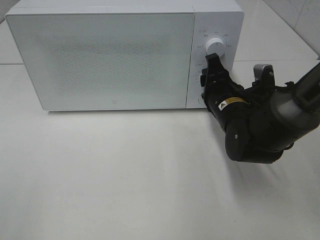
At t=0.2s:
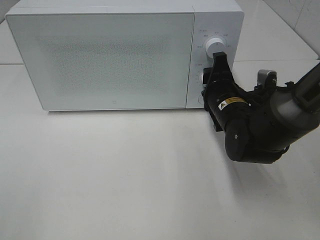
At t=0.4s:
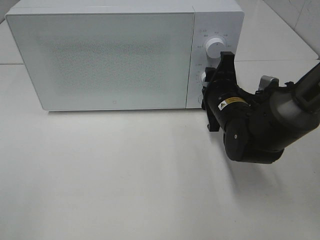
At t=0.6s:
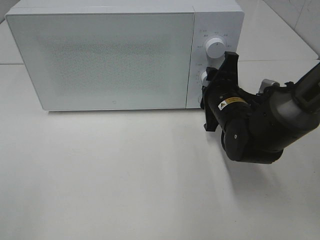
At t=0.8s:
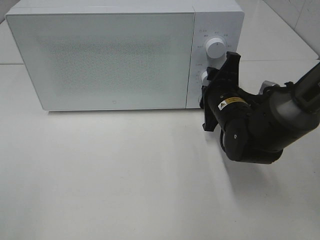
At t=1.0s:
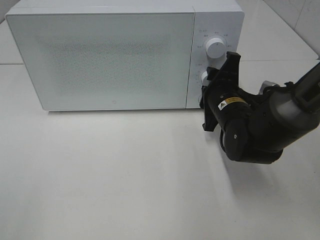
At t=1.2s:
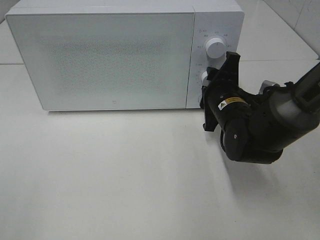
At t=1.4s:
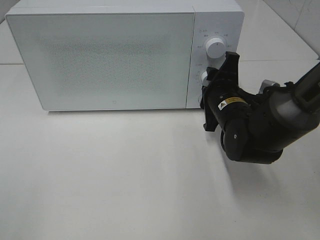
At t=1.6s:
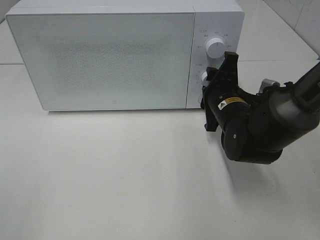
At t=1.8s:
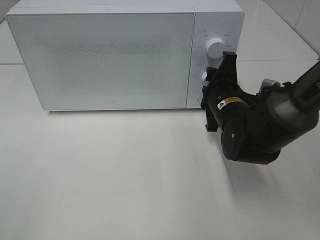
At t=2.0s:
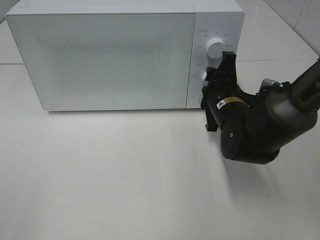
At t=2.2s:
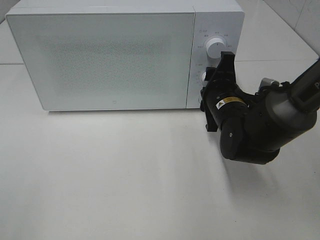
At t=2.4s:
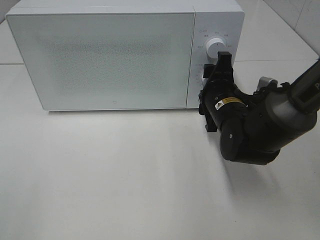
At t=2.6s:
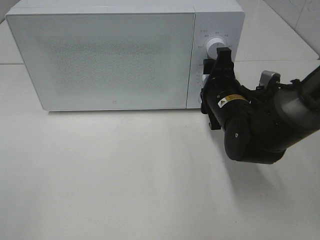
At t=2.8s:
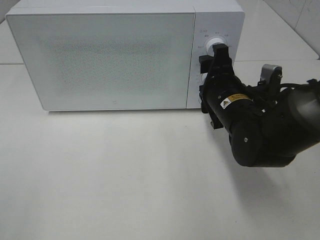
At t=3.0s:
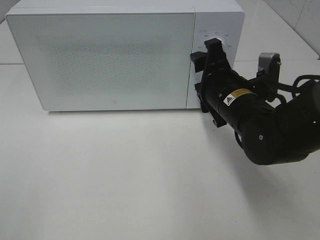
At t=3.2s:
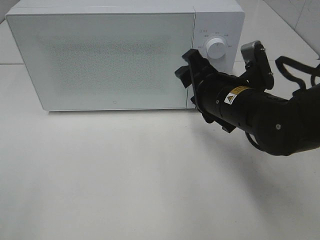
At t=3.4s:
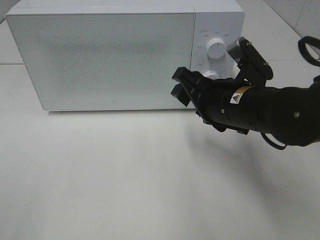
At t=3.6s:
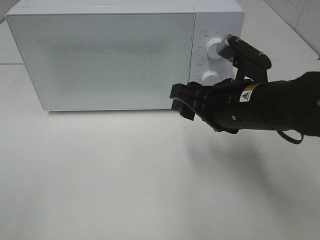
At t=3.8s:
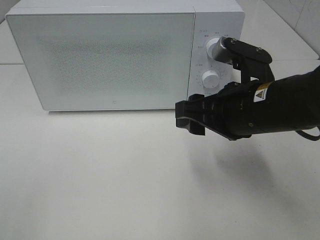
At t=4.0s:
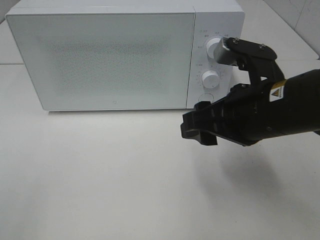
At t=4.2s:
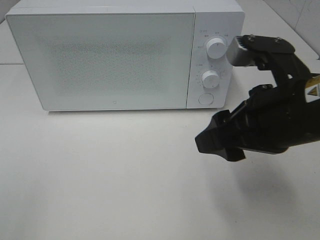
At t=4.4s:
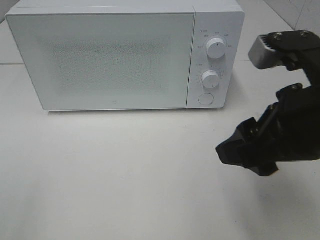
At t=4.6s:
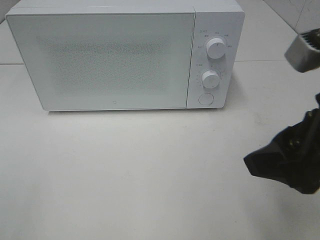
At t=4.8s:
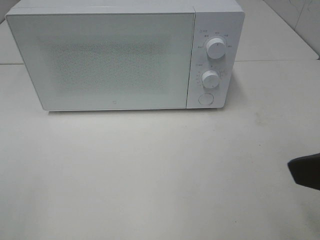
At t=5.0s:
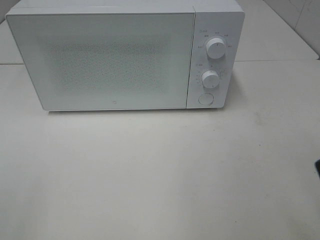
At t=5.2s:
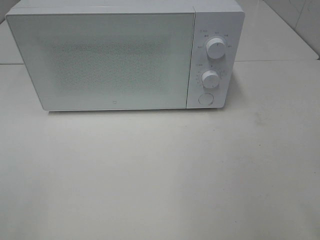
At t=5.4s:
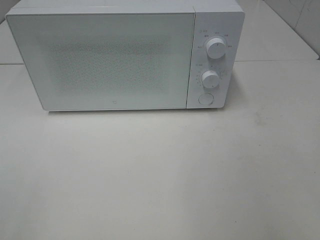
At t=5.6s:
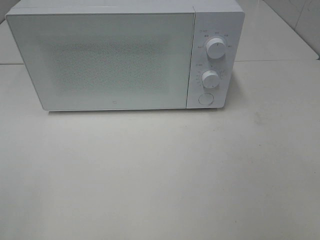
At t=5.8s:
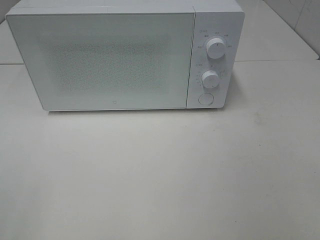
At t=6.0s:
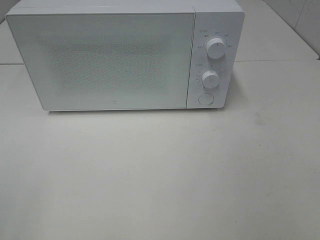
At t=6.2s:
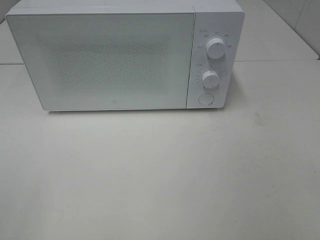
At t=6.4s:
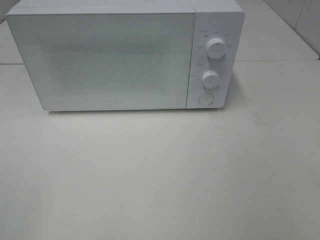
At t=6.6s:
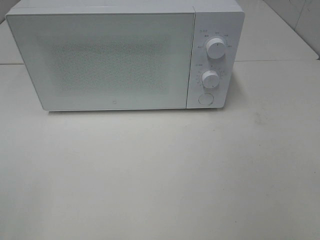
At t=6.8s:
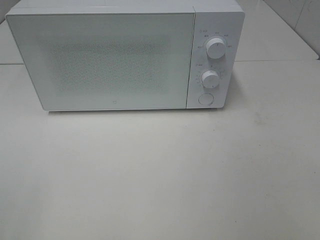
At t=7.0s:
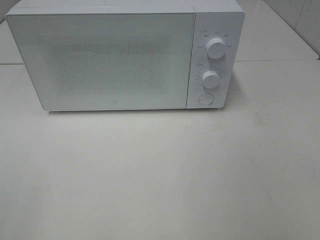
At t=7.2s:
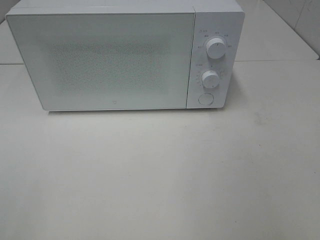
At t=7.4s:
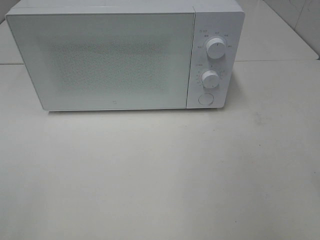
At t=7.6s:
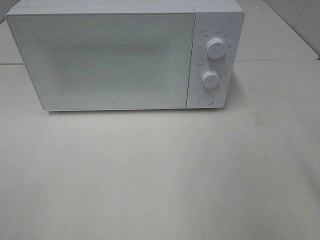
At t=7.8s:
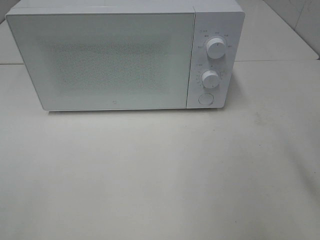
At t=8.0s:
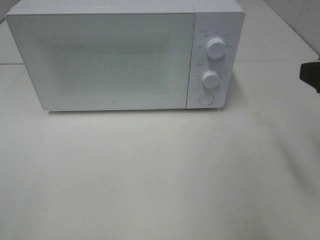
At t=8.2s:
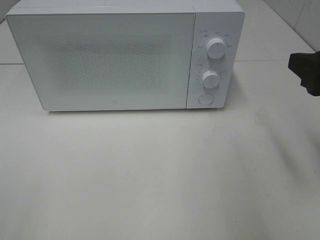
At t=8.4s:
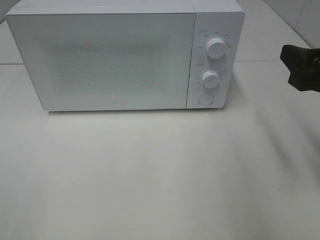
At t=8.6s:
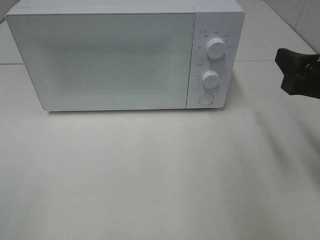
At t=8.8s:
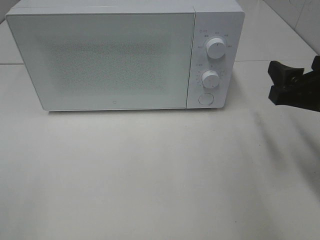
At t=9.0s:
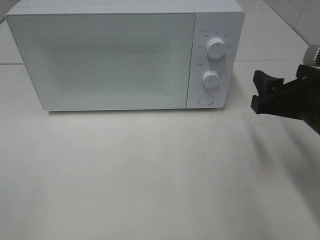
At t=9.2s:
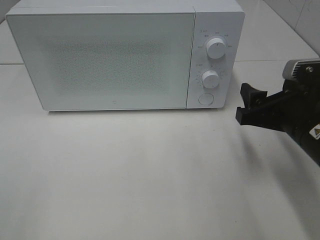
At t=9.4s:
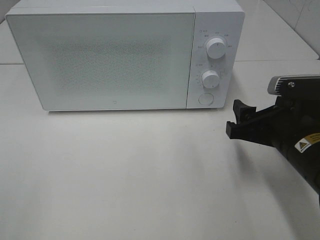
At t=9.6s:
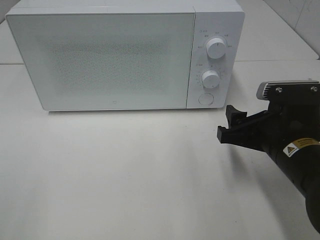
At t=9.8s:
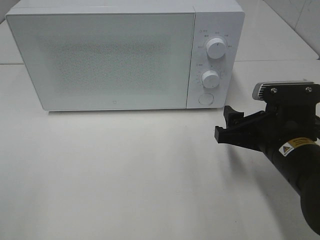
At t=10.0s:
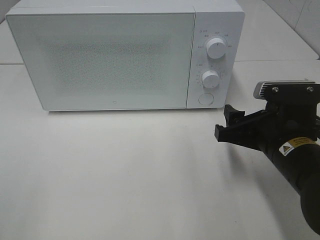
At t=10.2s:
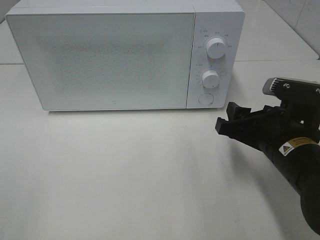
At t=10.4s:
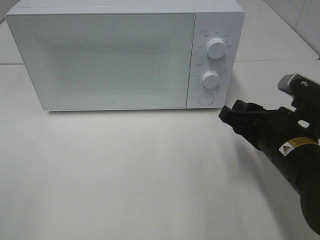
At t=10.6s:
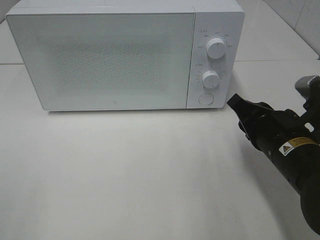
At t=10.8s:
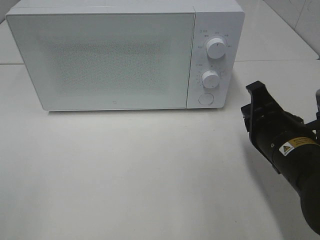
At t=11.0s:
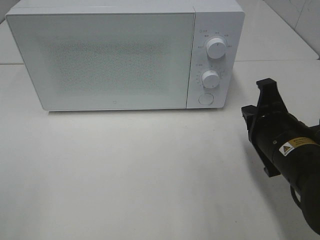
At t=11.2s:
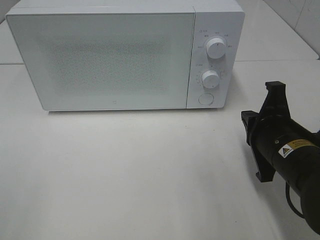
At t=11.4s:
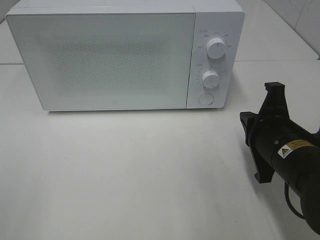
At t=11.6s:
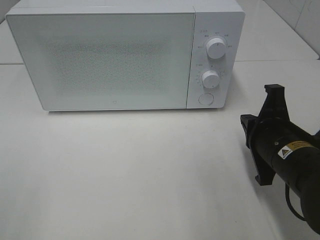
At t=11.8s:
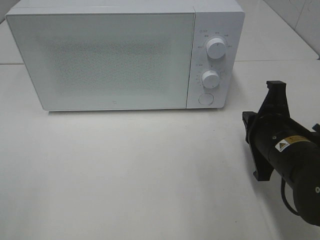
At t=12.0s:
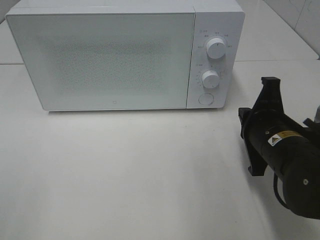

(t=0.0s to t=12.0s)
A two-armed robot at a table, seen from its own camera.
Task of the whole recording: Heat the burger.
Step, t=0.0s - t=2.4s: Right hand: twist timer button.
t=1.6s - t=3.0s: The right gripper changes place by some 5 cm.
t=3.0s - t=4.4s: The right gripper moves backward and upward, approximately 15 cm.
t=4.4s - t=6.0s: The right gripper moves backward and to the right, about 20 cm.
t=7.6s - t=9.0s: The right gripper moves downward and forward, some 15 cm.
t=9.0s - t=10.4s: The right gripper ends up approximately 5 cm from where it was.
t=10.4s - t=12.0s: The right gripper closes its fingers.

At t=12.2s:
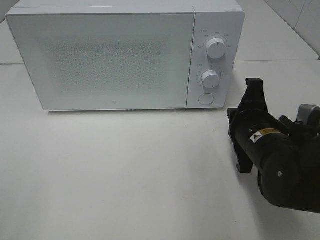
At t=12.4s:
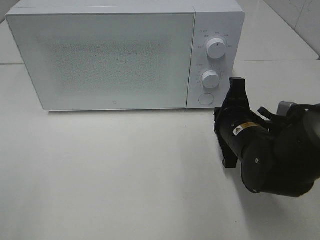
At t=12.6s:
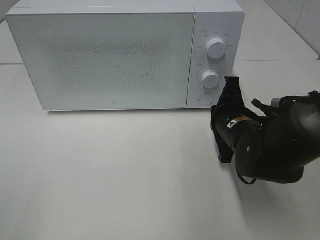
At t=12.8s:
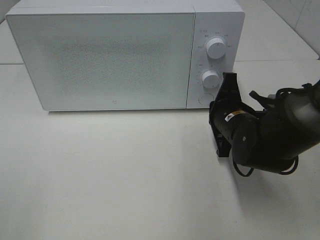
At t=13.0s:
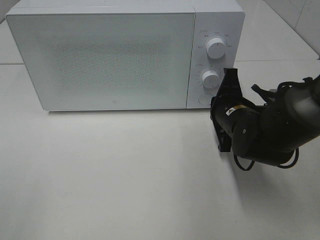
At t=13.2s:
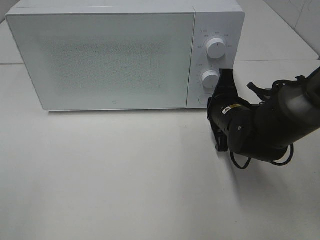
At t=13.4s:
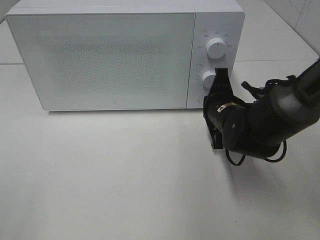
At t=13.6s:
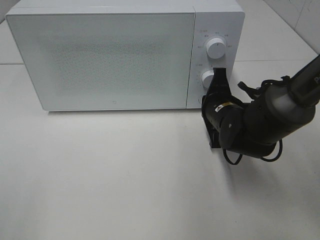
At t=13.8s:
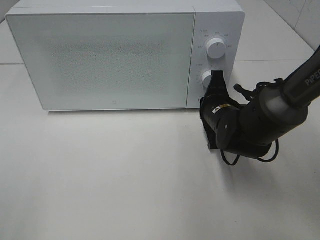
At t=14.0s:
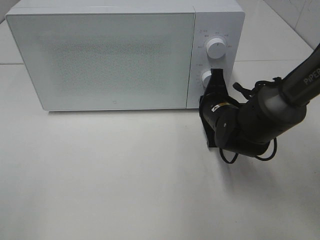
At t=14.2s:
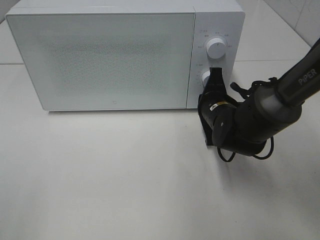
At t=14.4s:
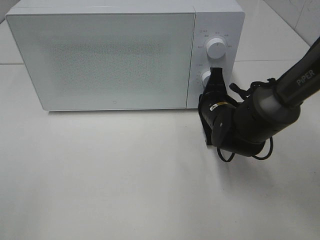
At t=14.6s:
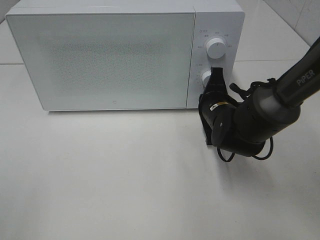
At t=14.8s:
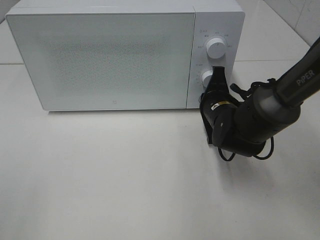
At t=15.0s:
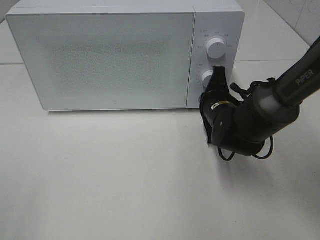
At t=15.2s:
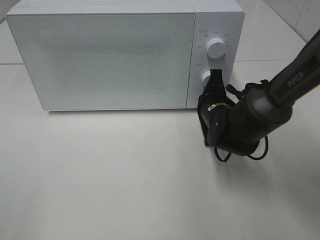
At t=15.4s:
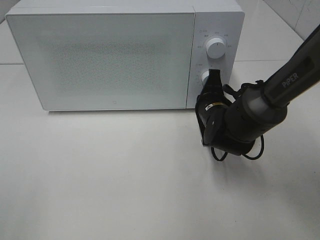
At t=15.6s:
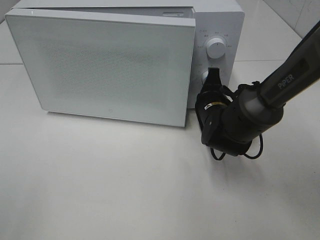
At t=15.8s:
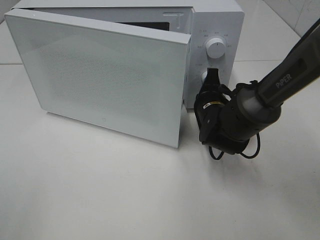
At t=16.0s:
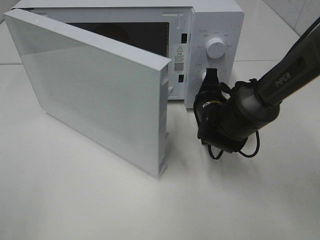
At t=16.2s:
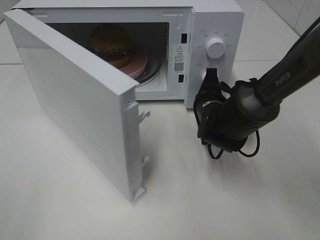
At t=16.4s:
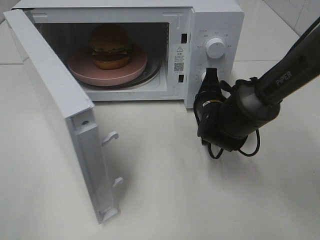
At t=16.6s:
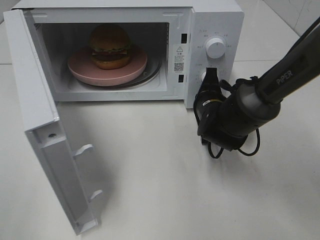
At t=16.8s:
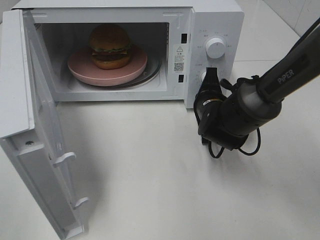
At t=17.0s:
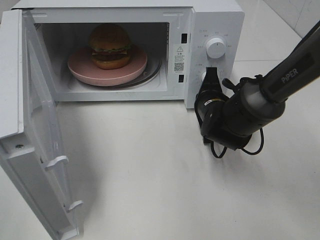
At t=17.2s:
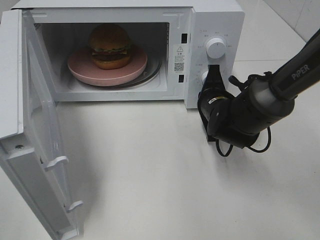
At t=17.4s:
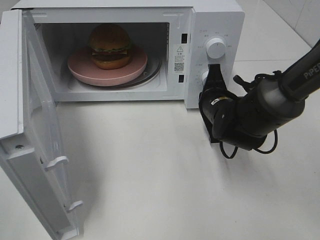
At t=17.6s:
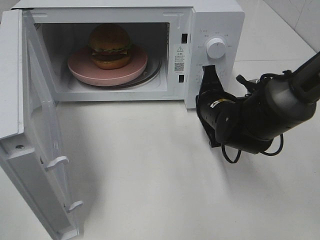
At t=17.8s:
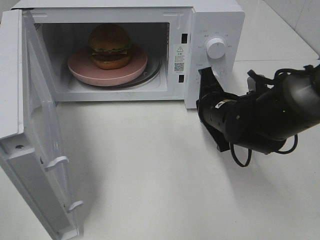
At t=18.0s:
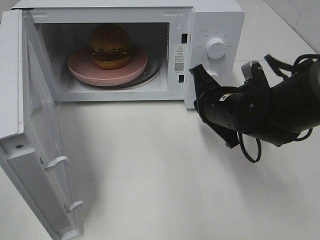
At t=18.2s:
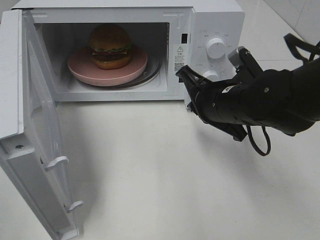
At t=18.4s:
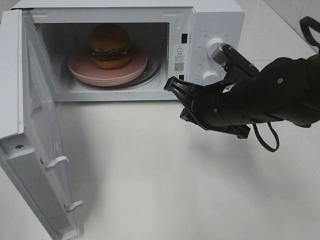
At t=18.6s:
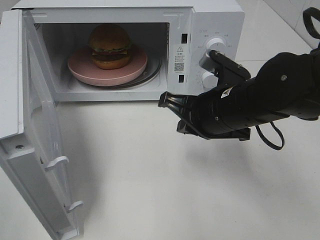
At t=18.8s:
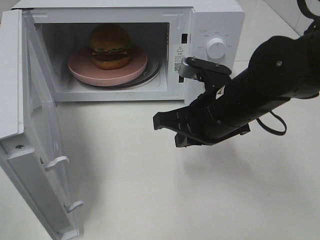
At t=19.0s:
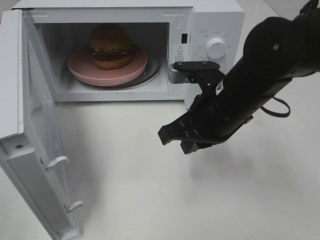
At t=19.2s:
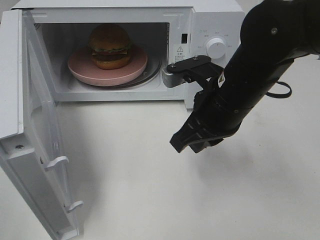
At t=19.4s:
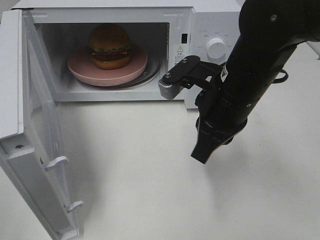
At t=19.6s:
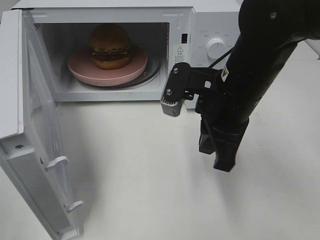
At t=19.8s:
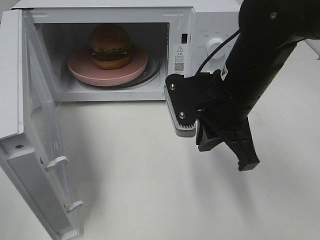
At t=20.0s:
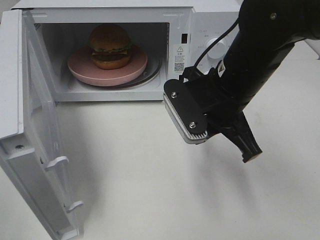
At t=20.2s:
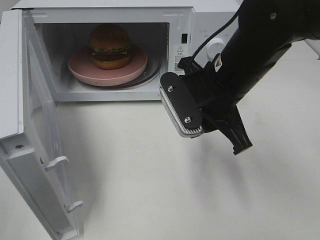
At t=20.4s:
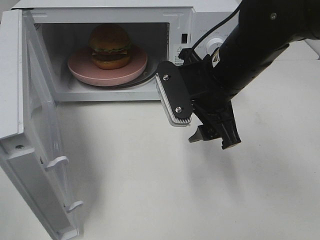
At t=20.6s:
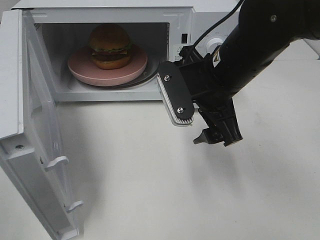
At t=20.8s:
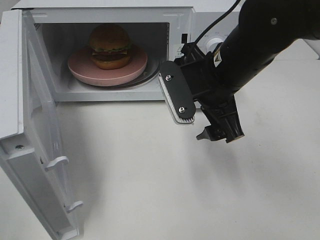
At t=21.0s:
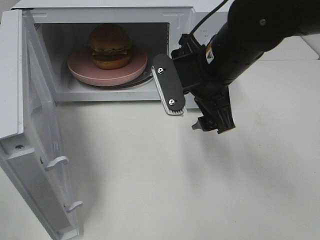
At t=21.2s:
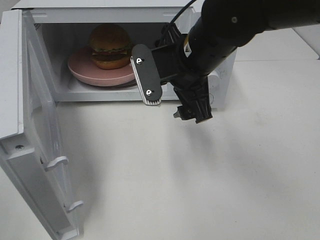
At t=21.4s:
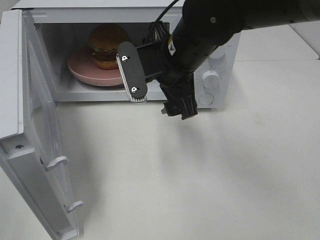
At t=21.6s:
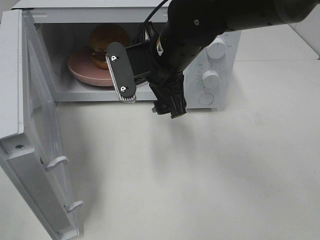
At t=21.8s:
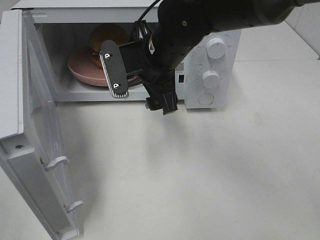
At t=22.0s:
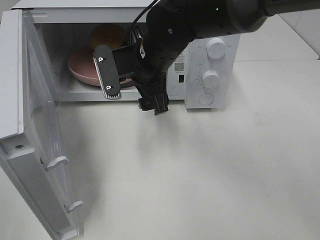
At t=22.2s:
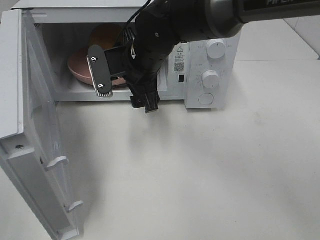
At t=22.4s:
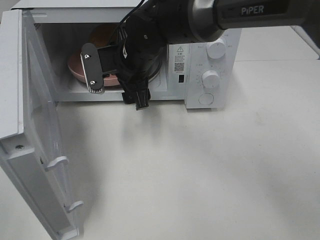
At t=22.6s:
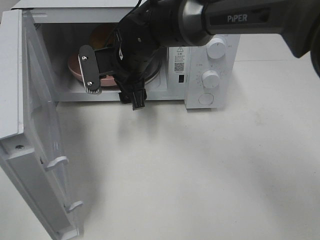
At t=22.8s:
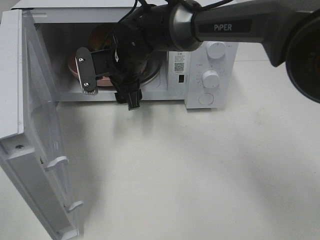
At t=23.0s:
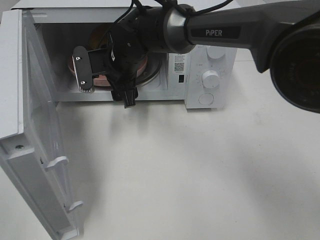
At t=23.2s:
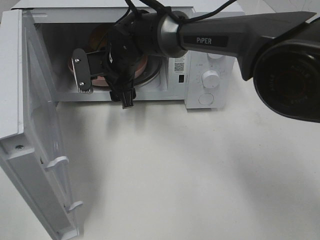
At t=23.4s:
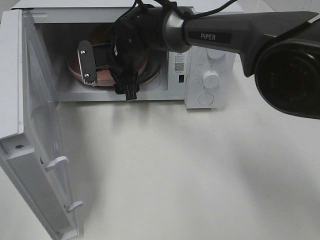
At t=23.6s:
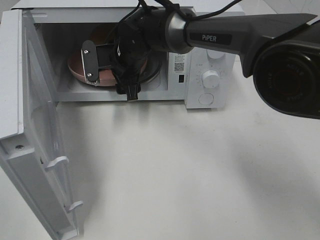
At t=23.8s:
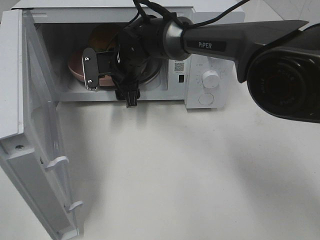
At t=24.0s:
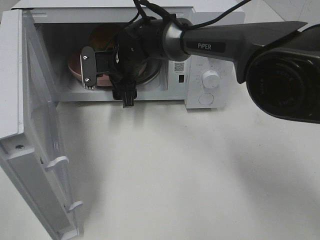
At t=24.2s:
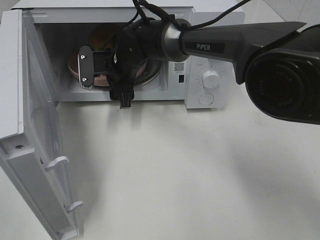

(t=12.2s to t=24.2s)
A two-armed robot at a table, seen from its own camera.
Task of the whole recording: Heat the burger.
Step, t=12.2s - t=17.4s: Right hand: press the switch.
t=12.2s - t=13.8s: The right gripper is displaced forward by roughly 10 cm.
t=13.8s - t=15.2s: There are only small adjustments of the grippers.
t=16.6s - t=18.2s: The right gripper travels upward and backward by some 10 cm.
t=18.2s - t=19.8s: The right gripper shifts by roughly 5 cm.
t=19.8s - t=21.2s: The right gripper shifts by some 5 cm, and opens its fingers.
t=21.2s - t=22.6s: The right gripper is displaced to the left, forward and downward by about 15 cm.
t=22.6s - t=24.2s: The right gripper shifts by some 5 cm.
